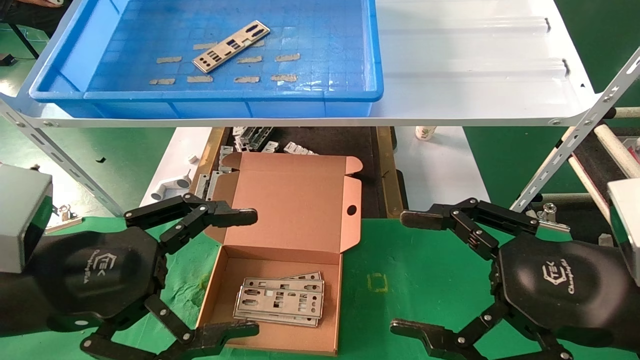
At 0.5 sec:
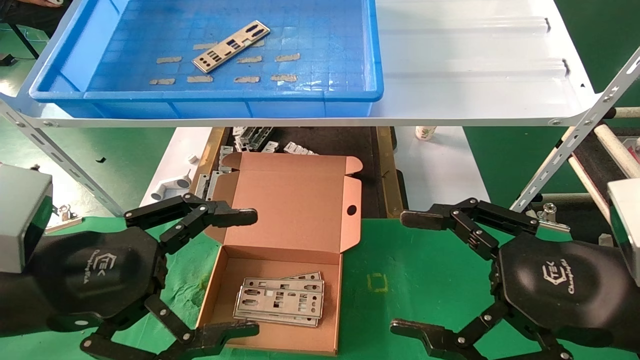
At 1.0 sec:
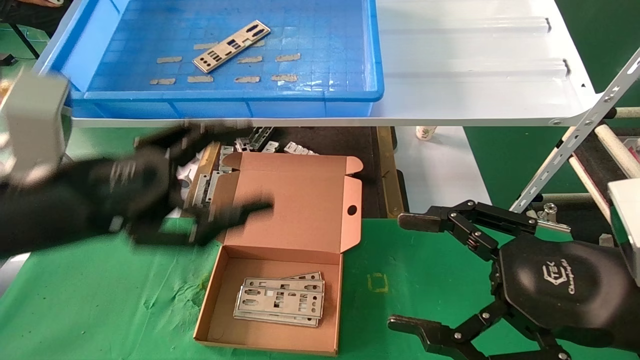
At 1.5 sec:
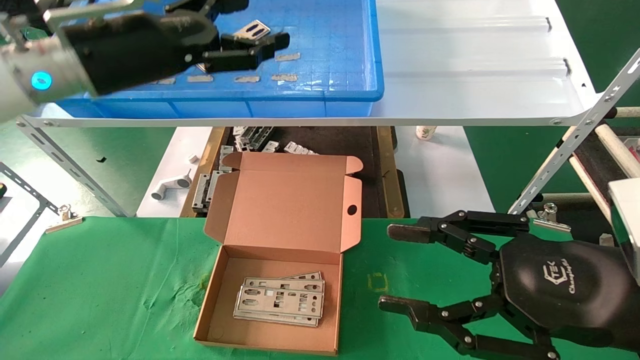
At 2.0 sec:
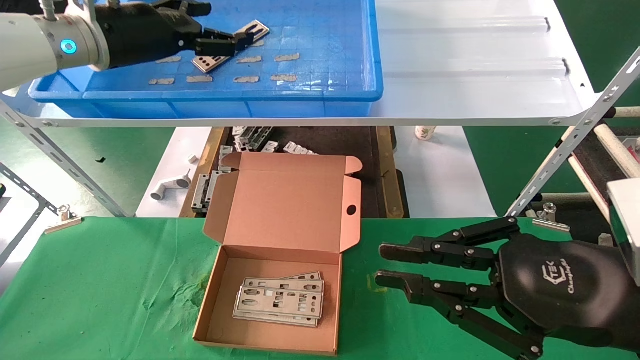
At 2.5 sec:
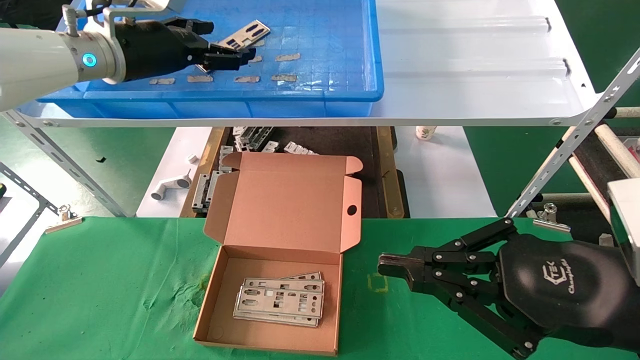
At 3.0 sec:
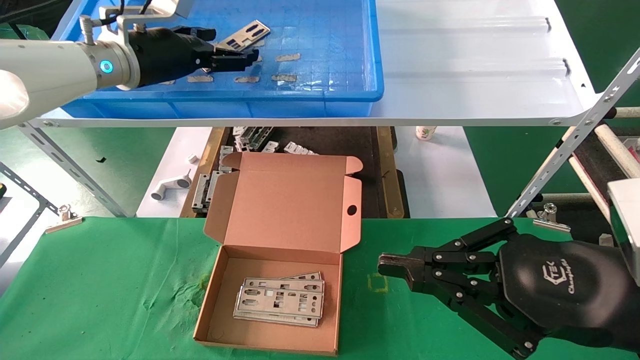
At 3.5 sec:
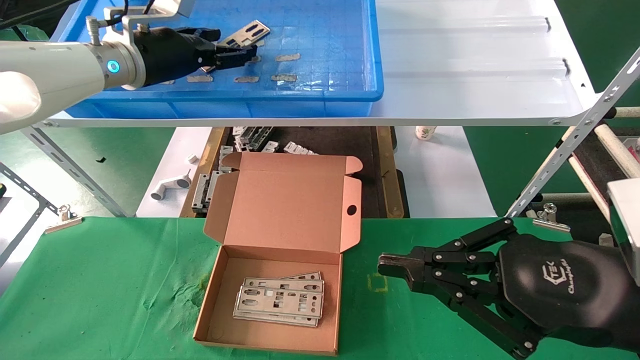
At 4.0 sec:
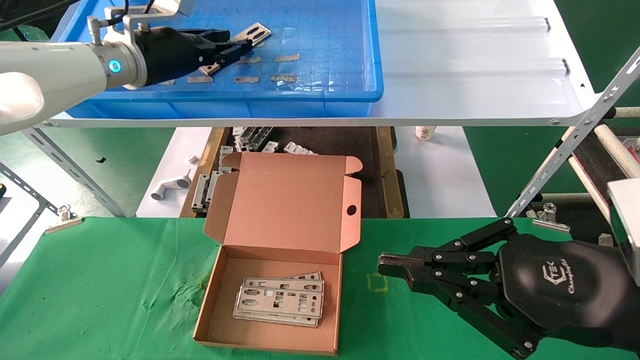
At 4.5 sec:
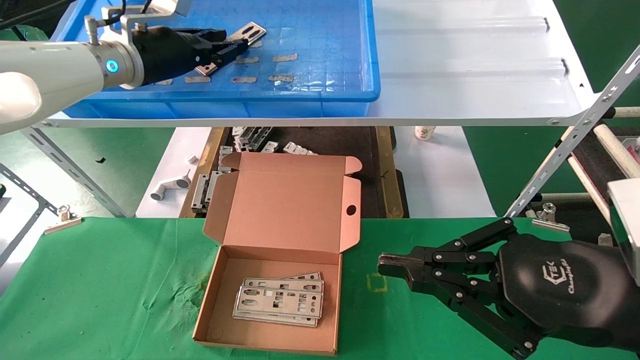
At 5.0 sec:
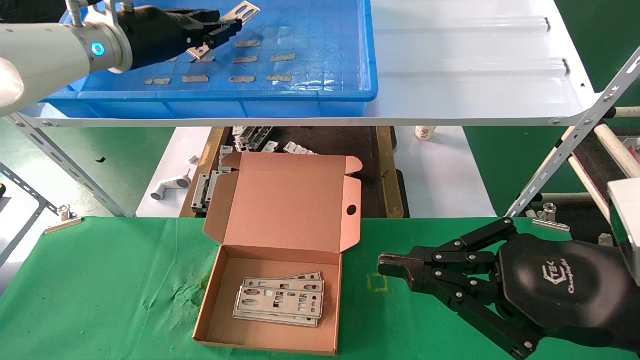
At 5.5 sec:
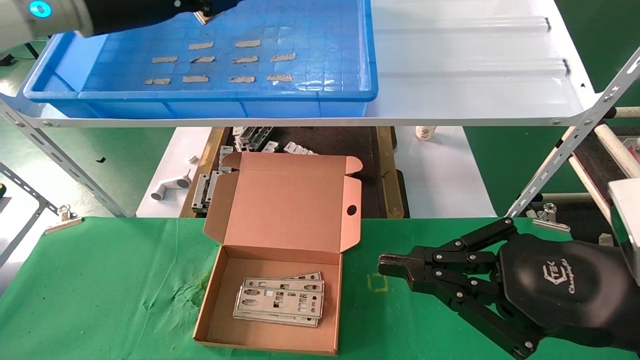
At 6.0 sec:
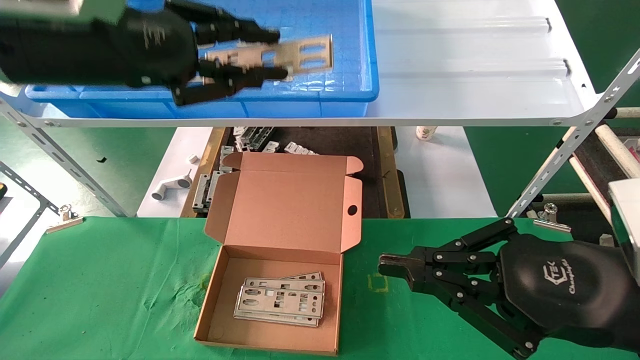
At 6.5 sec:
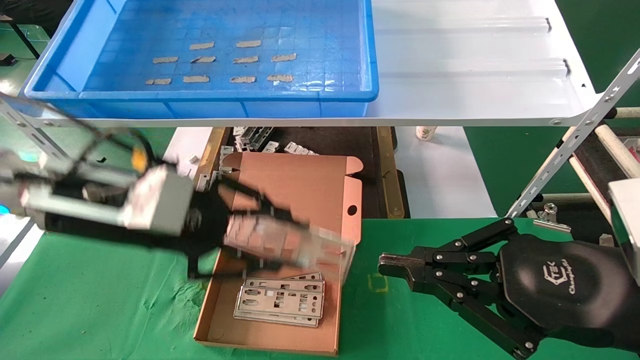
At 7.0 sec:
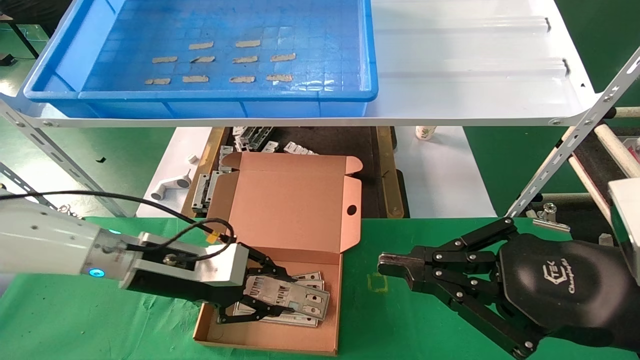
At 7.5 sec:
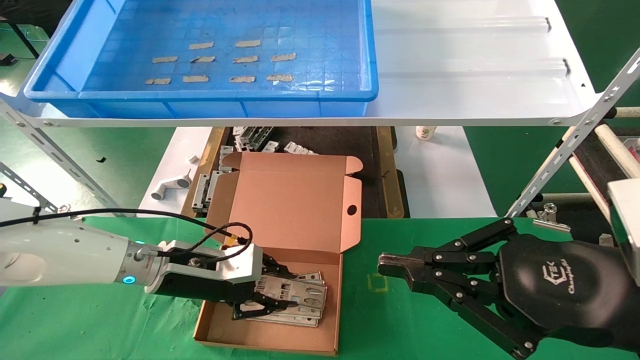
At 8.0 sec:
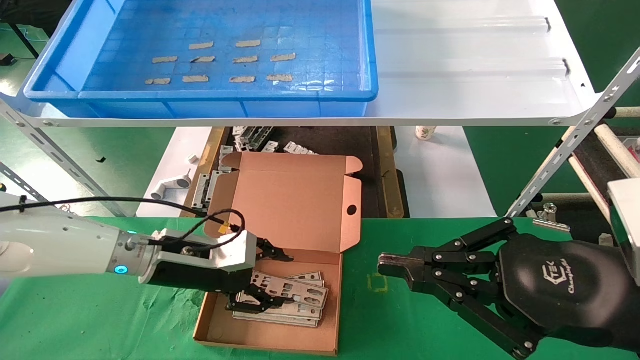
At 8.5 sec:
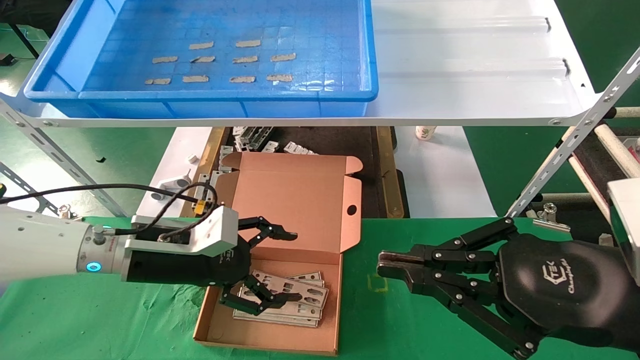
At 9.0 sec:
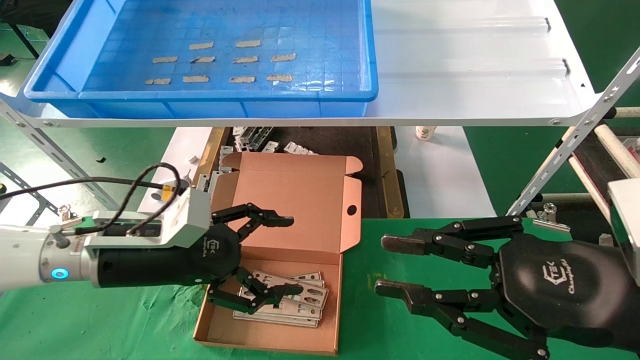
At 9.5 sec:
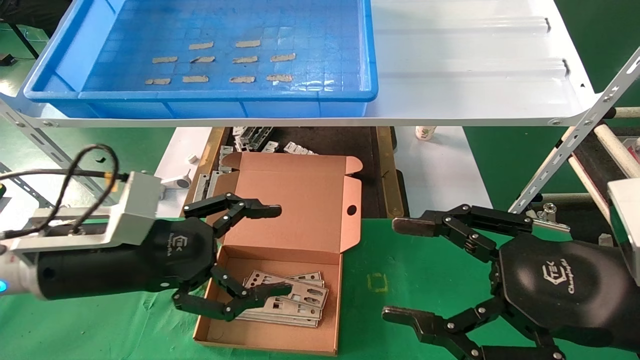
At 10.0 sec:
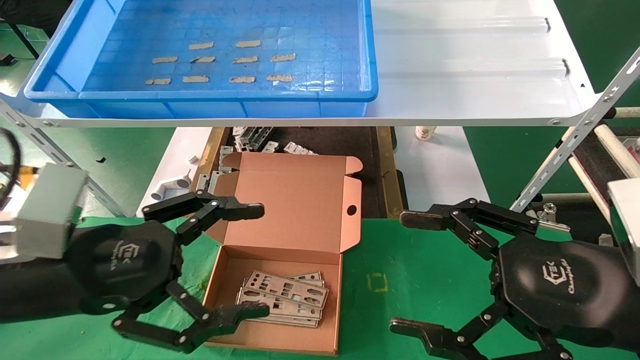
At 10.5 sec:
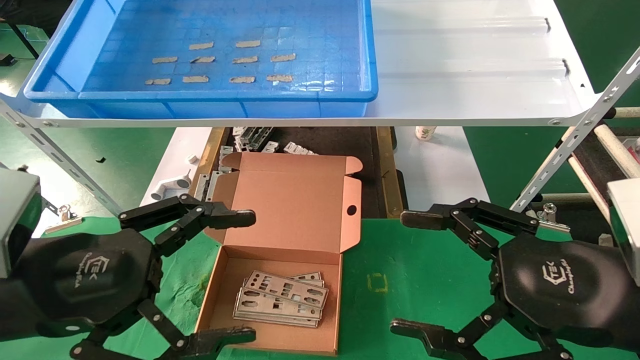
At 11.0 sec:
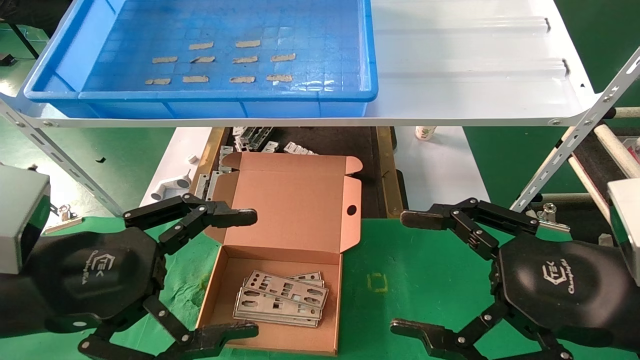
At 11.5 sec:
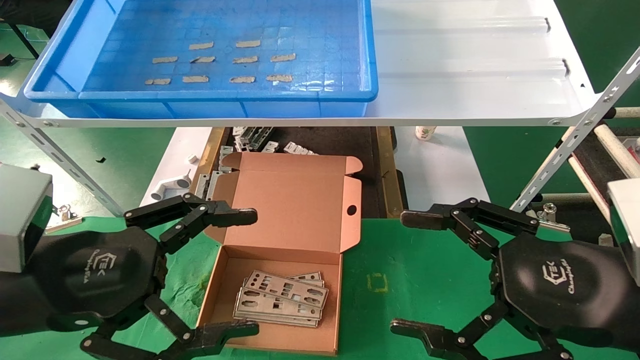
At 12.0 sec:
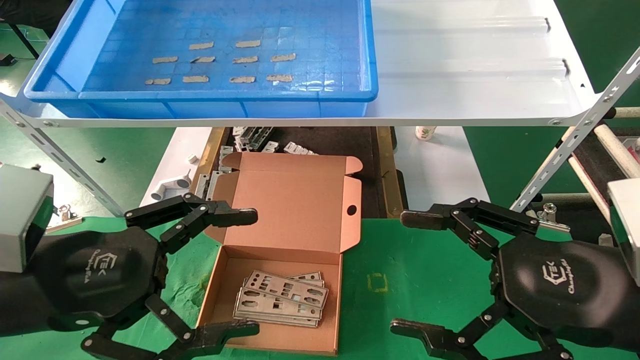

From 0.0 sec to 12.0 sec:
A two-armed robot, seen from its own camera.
Task of the whole recording: pick up the parts on the tray and put them in the cardboard box.
Step, from 1.5 sec to 4.5 sec: Pick up the IO bracket from the container box.
Step, from 5.0 sec to 7.5 sec: Place the IO bracket into the ingredient slot.
From 0.0 sec to 2.0 sec: The left gripper travels forward and upward by approximately 30 cm. Meanwhile the right gripper closes up.
From 2.0 sec to 4.0 sec: The left gripper closes.
From 4.0 sec to 6.0 sec: The left gripper goes approximately 15 cm backward.
From 6.0 sec to 8.0 sec: The left gripper moves downward, roughly 25 cm.
From 8.0 sec to 10.0 sec: The right gripper opens its fingers. Meanwhile the left gripper travels backward and upward by about 20 cm, and opens up.
From 10.0 sec to 12.0 sec: There are only small adjustments of the grippers.

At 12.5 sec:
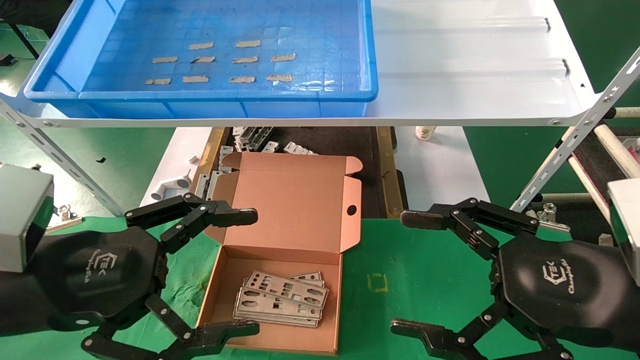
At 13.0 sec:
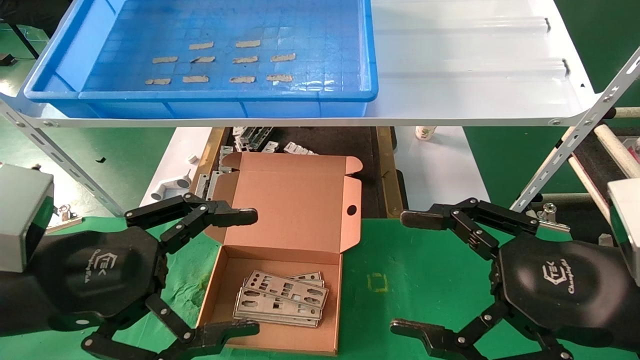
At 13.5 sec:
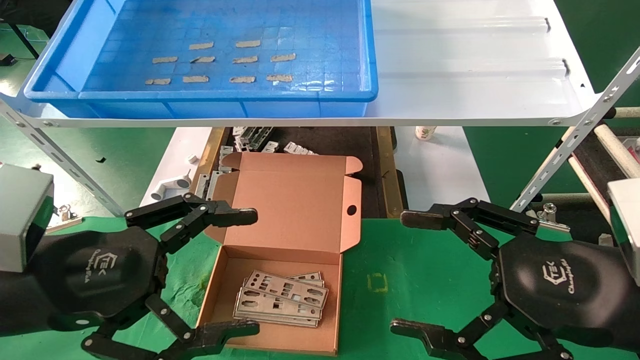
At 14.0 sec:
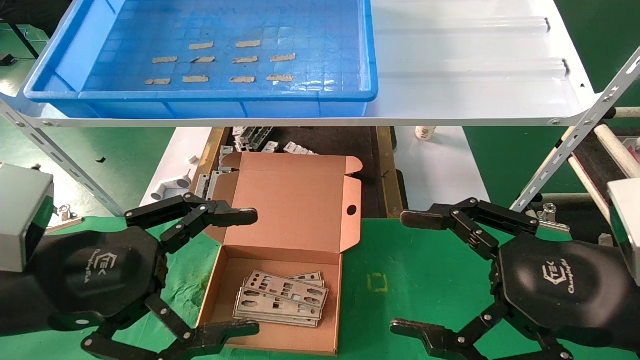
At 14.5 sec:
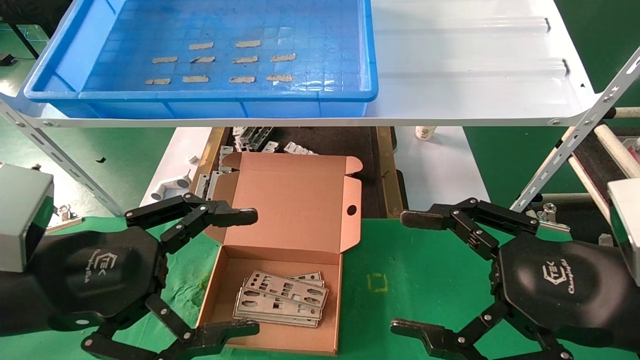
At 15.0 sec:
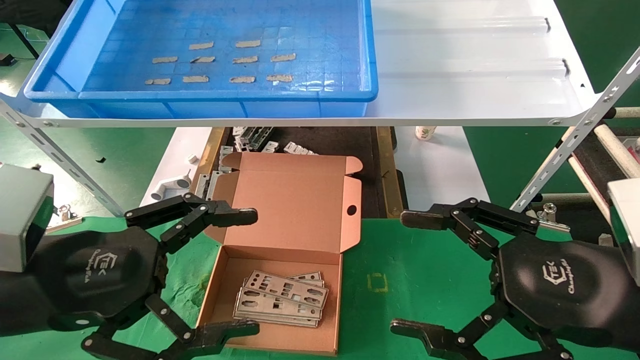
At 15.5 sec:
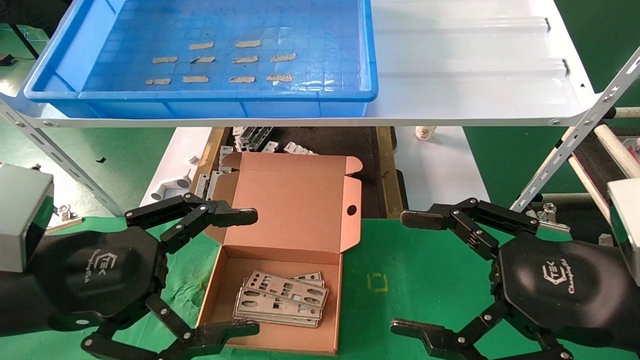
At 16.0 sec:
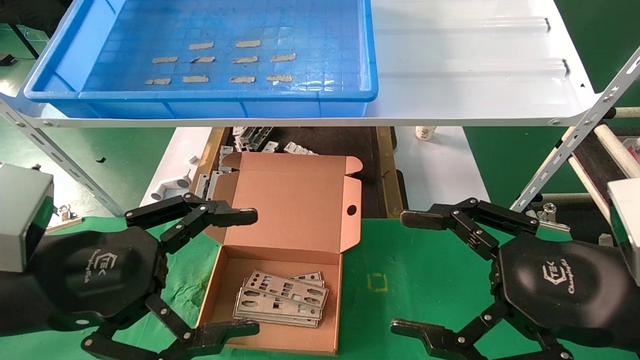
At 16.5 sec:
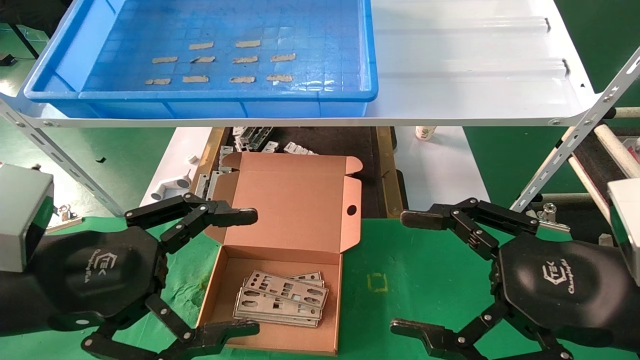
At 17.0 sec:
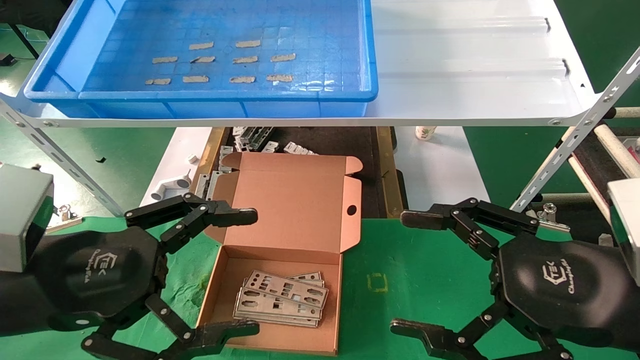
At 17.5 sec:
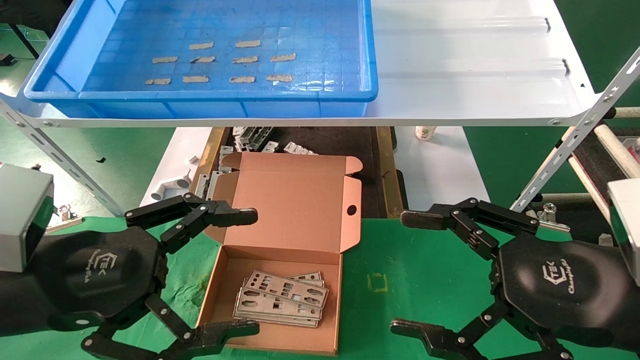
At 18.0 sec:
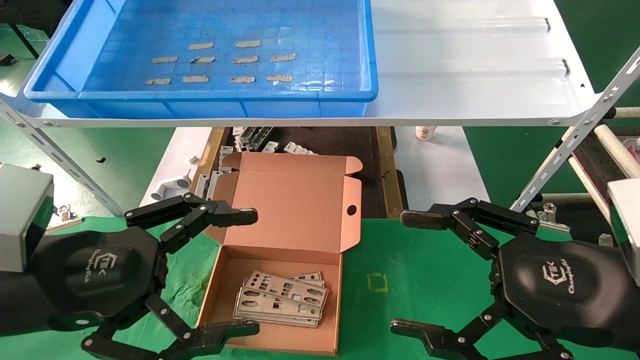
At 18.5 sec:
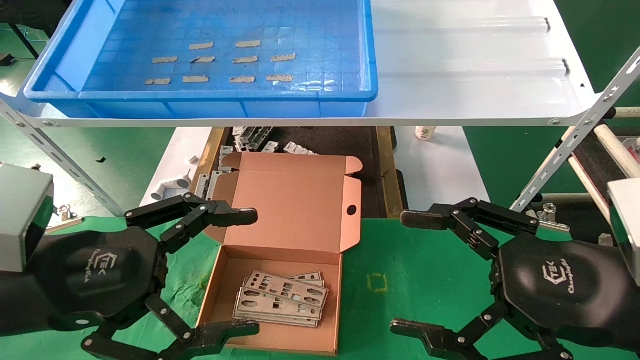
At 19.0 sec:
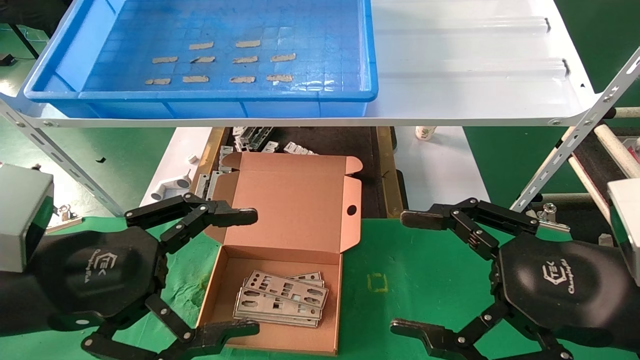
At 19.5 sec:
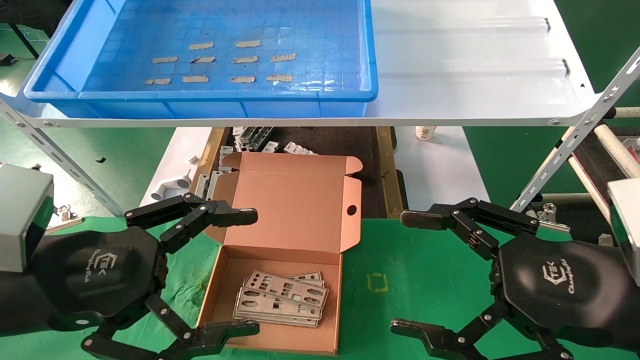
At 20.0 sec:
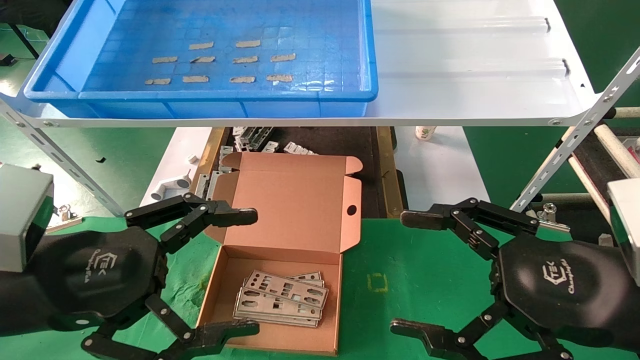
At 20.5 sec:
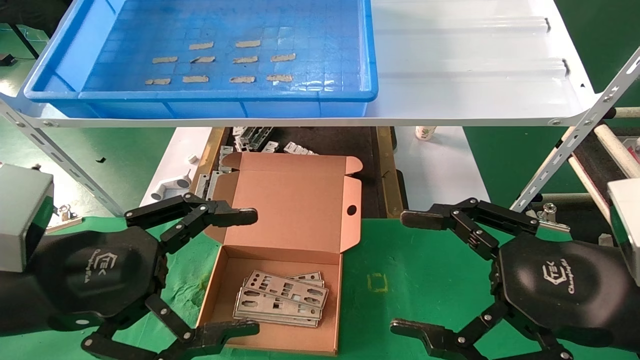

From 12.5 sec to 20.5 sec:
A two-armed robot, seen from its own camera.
Task of the whole recording: pick up the parts on the tray and put them in the cardboard box.
From 12.5 sec to 20.5 sec: Neither gripper changes place.
